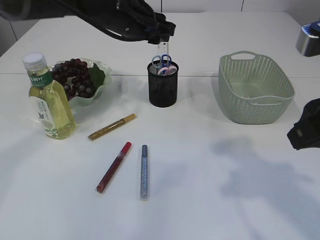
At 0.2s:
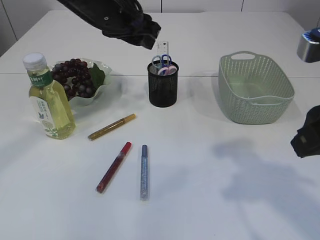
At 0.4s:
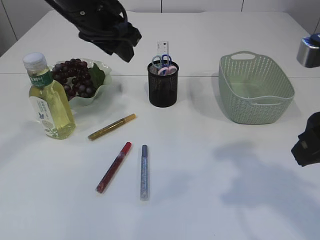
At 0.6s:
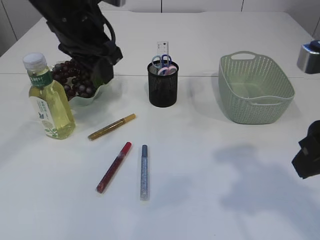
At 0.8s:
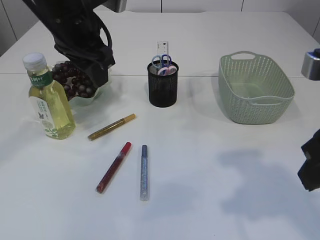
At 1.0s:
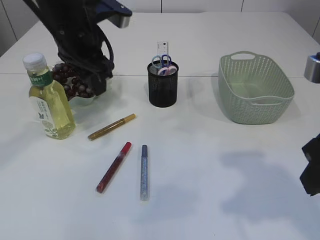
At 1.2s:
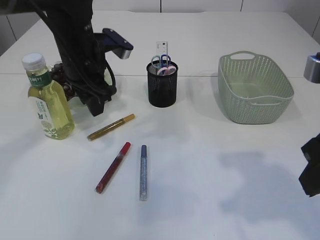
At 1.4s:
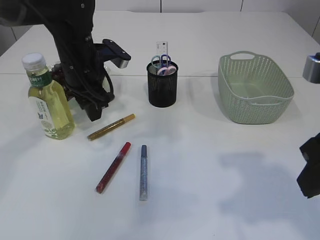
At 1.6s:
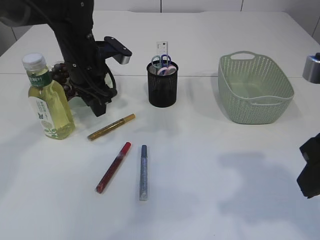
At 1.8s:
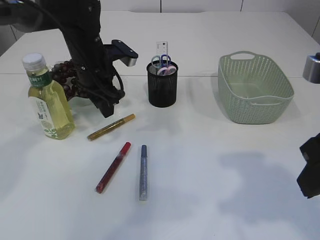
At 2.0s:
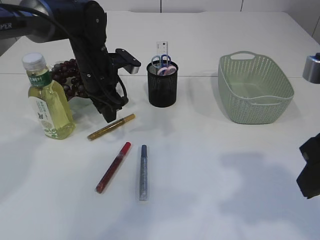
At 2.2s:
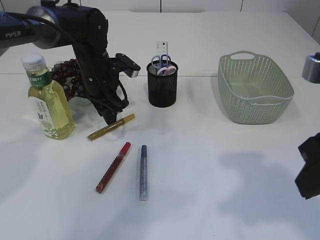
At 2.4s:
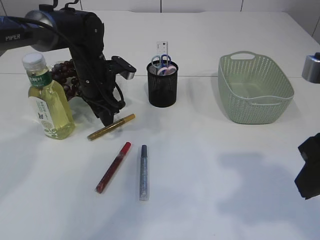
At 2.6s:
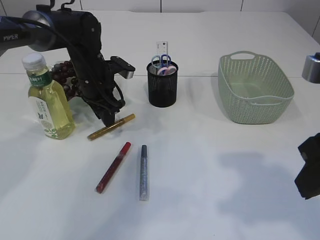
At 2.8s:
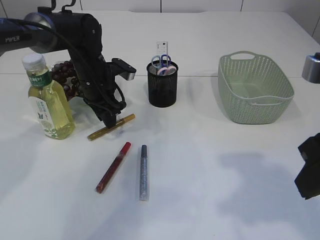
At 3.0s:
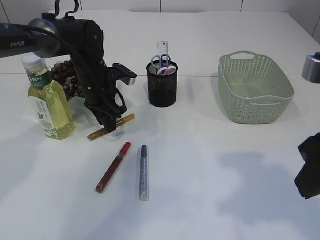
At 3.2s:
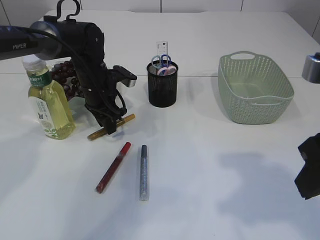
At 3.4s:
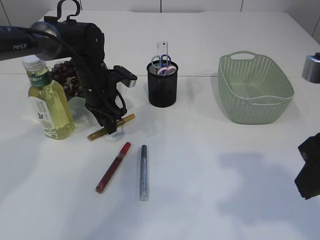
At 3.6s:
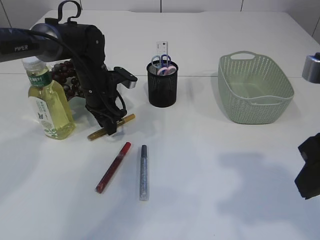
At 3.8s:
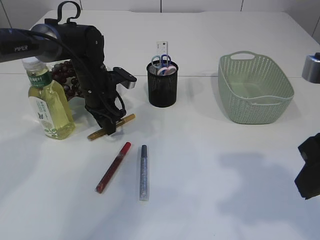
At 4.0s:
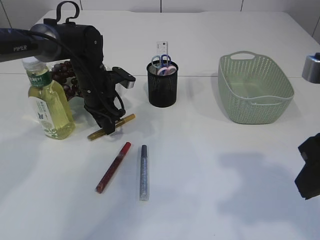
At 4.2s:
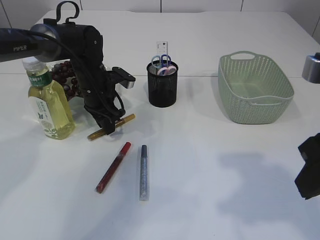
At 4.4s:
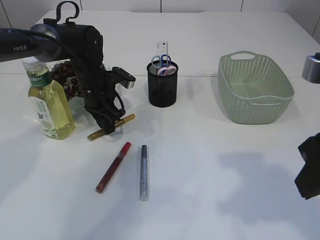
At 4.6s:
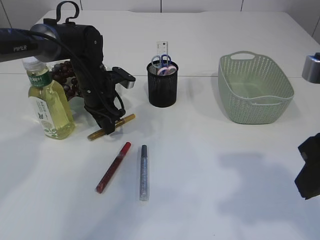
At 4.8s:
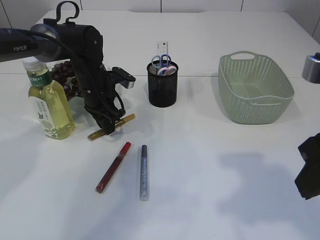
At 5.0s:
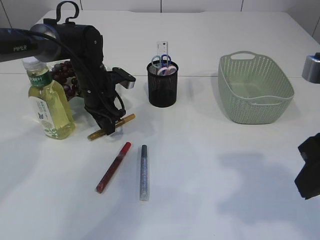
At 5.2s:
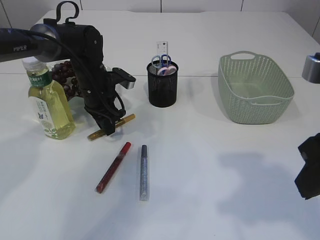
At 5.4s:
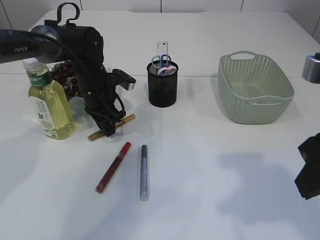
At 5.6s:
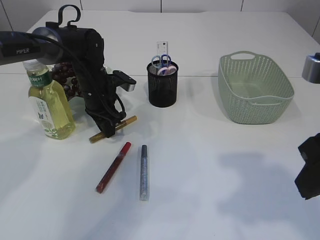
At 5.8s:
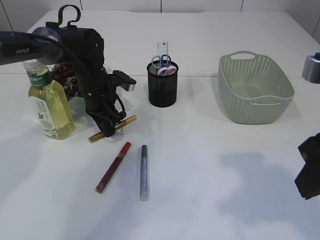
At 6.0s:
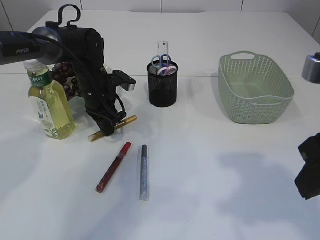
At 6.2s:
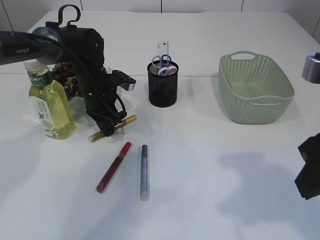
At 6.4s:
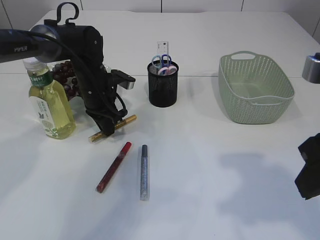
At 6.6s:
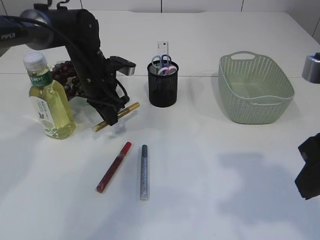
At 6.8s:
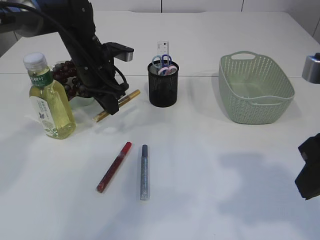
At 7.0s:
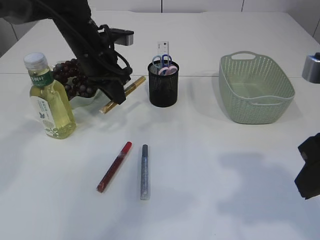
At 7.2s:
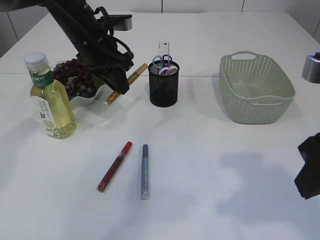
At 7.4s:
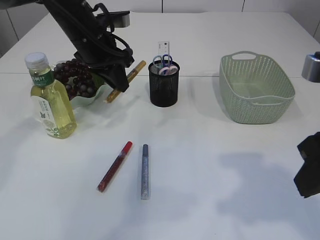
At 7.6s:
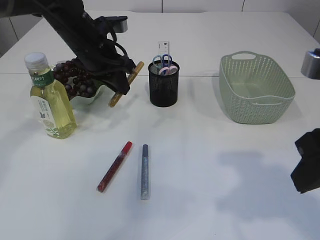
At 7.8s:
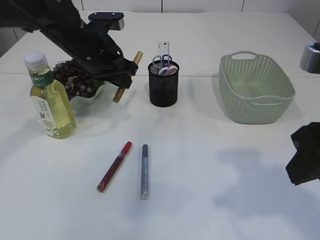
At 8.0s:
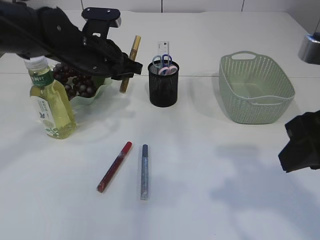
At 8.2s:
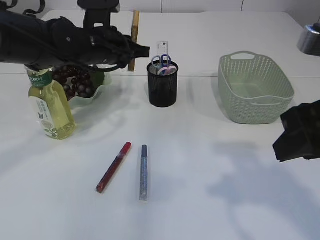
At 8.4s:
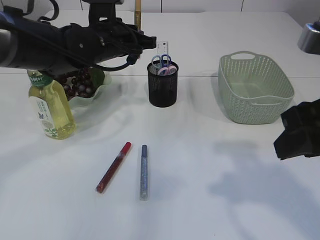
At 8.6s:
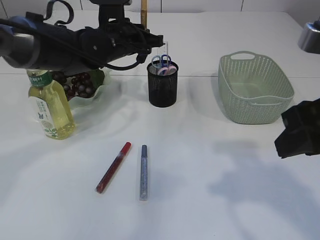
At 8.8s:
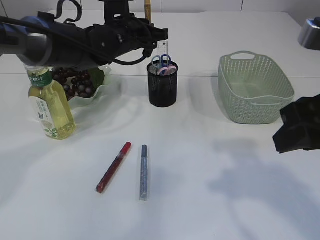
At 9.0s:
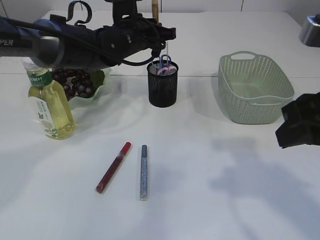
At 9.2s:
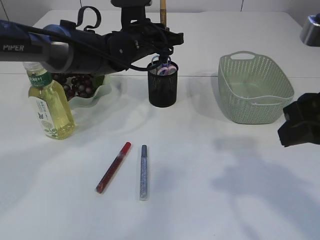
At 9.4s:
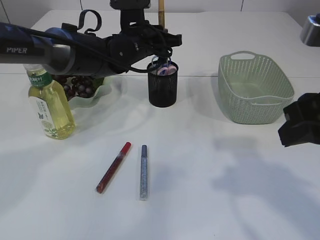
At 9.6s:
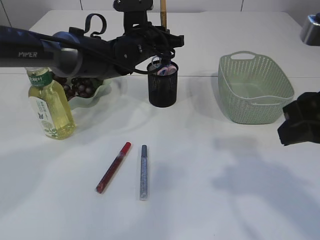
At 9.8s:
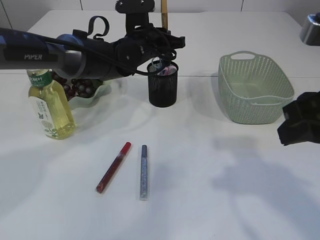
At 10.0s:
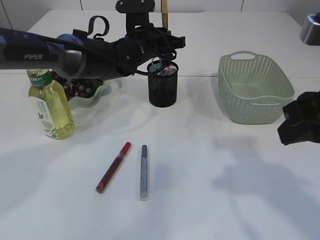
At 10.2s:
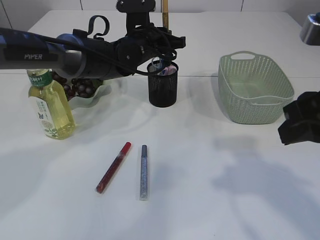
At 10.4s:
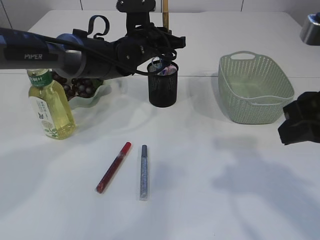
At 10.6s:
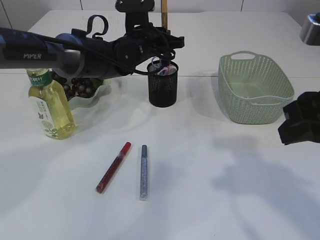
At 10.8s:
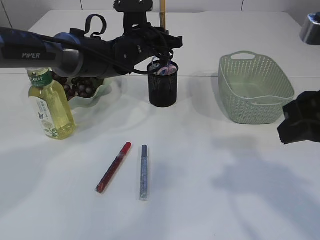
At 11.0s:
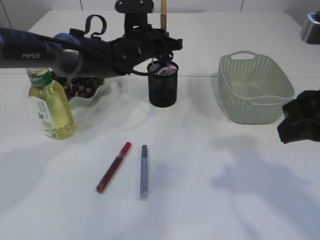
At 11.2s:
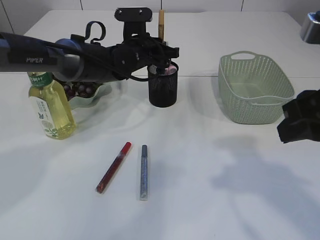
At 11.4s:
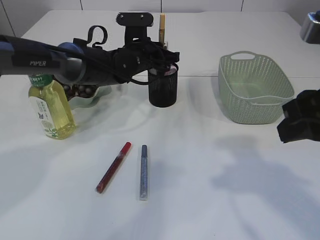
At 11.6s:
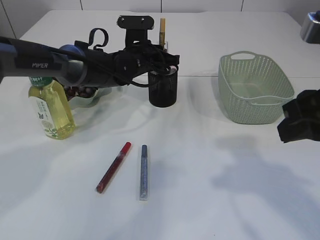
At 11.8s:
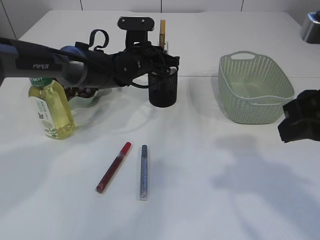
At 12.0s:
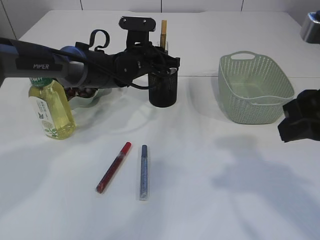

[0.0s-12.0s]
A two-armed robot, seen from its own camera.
Step, 0.2s to 7.0s: pick up the yellow glue.
0.0s to 1.6s: The left gripper goes about 10 cm to the left and downward.
1.6s to 3.0s: The left gripper travels downward by roughly 10 cm.
3.0s to 4.4s: Both grippers stay put.
4.4s to 6.0s: The two grippers keep their place.
6.0s to 7.6s: The left gripper goes approximately 10 cm upward.
7.6s to 9.0s: The left gripper shifts about 5 cm to the right.
9.0s to 10.4s: The grippers make only small movements.
10.4s to 12.0s: The grippers move only a little.

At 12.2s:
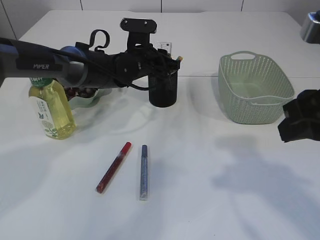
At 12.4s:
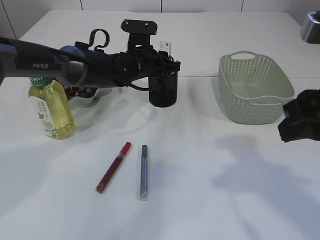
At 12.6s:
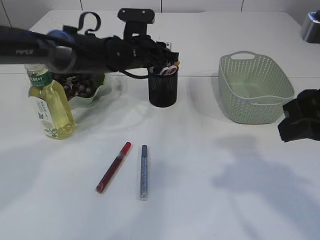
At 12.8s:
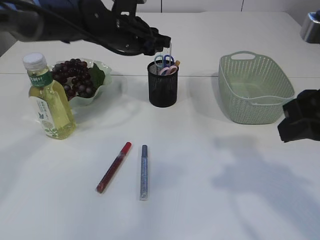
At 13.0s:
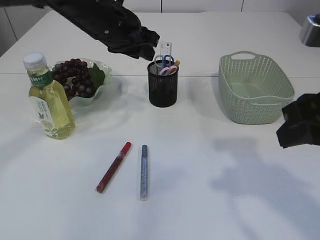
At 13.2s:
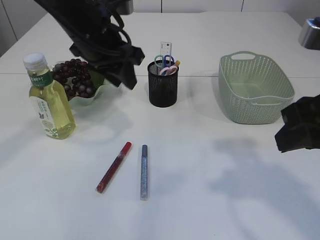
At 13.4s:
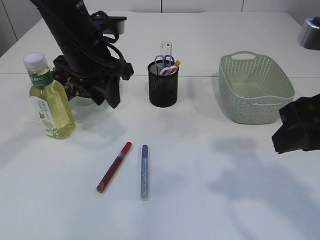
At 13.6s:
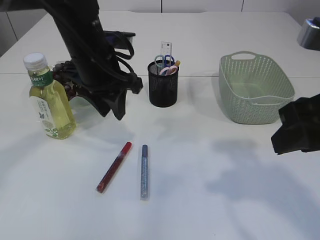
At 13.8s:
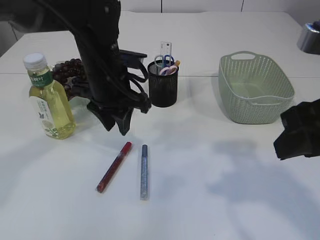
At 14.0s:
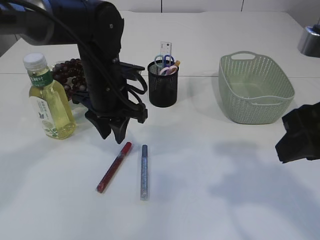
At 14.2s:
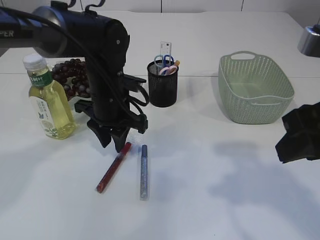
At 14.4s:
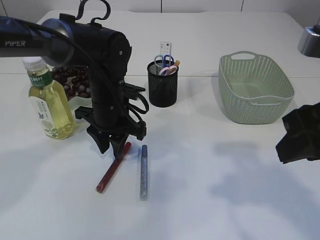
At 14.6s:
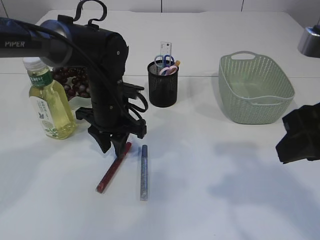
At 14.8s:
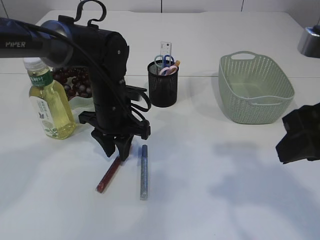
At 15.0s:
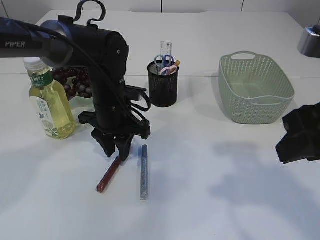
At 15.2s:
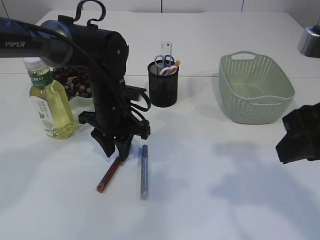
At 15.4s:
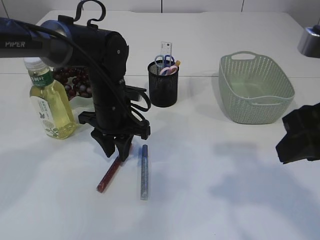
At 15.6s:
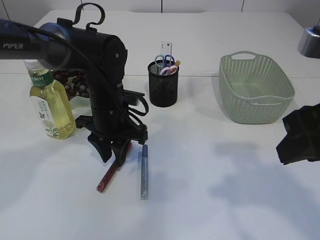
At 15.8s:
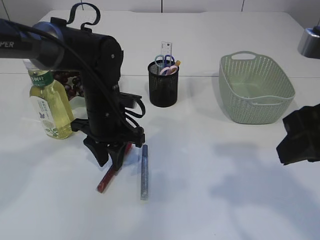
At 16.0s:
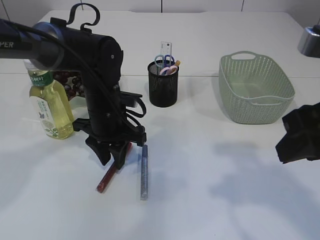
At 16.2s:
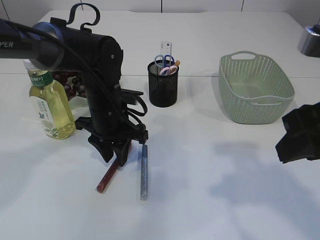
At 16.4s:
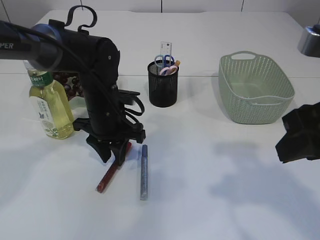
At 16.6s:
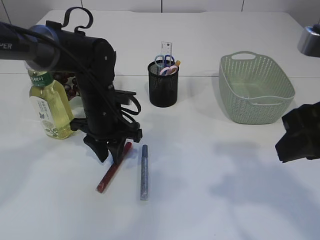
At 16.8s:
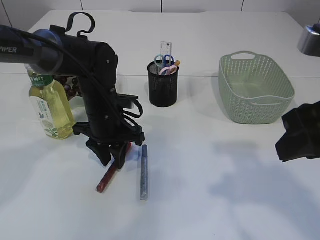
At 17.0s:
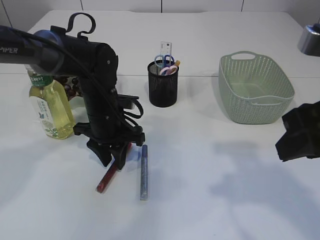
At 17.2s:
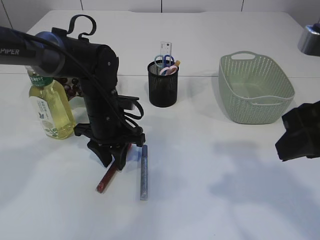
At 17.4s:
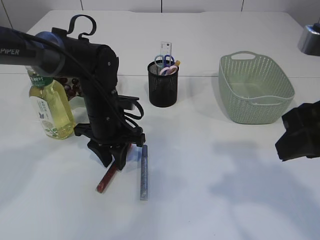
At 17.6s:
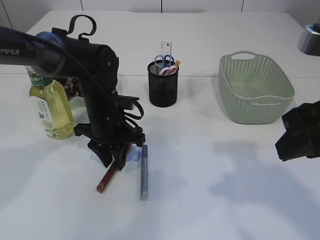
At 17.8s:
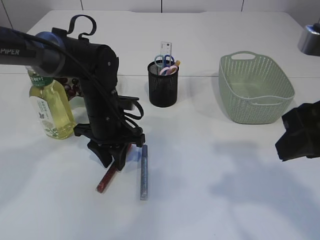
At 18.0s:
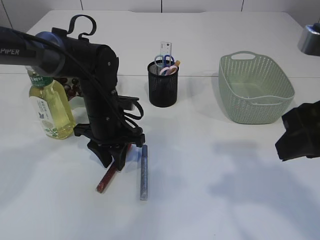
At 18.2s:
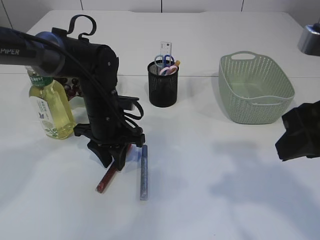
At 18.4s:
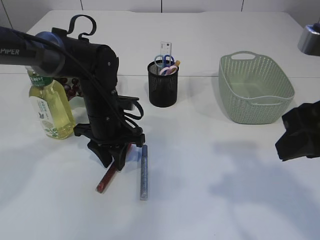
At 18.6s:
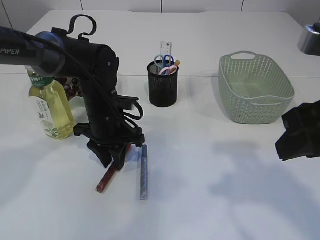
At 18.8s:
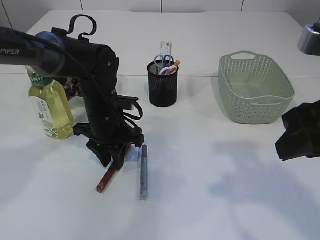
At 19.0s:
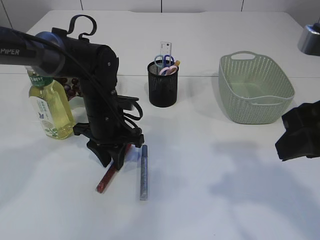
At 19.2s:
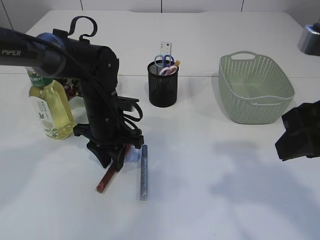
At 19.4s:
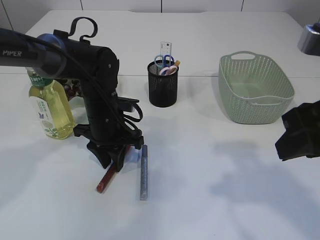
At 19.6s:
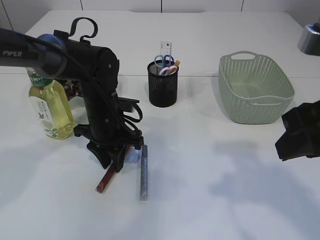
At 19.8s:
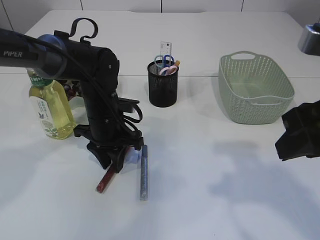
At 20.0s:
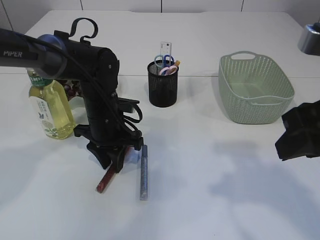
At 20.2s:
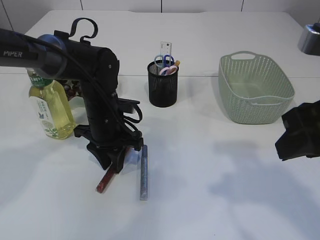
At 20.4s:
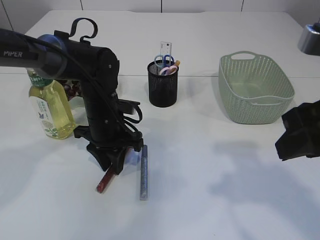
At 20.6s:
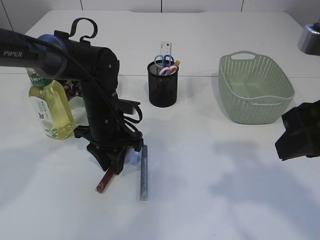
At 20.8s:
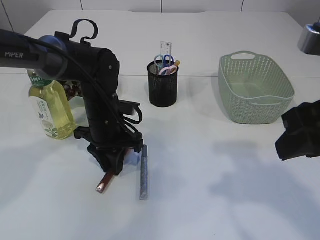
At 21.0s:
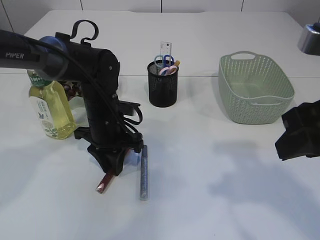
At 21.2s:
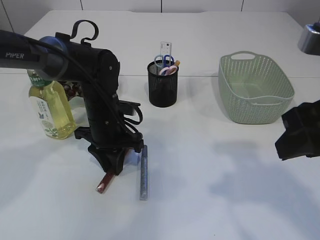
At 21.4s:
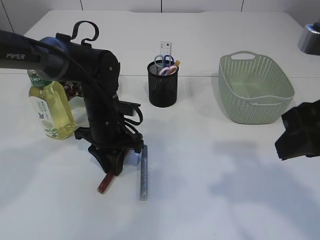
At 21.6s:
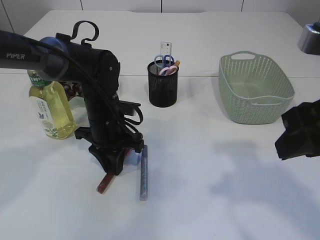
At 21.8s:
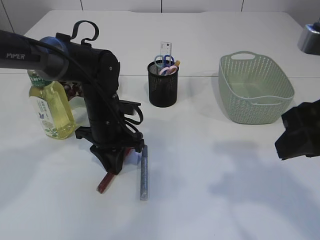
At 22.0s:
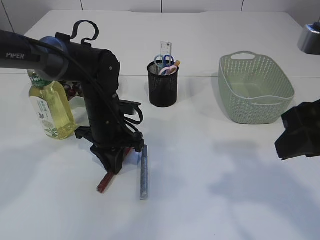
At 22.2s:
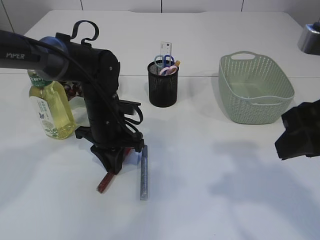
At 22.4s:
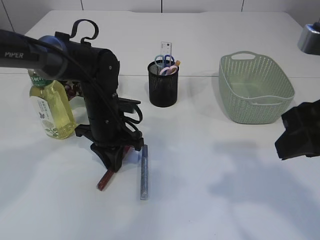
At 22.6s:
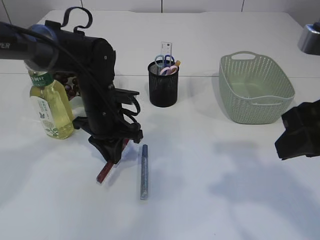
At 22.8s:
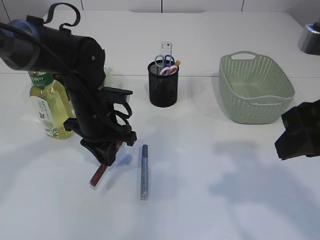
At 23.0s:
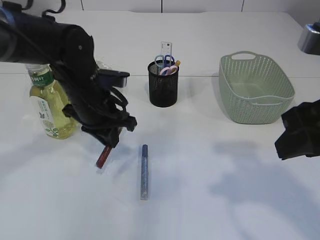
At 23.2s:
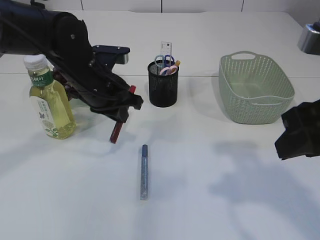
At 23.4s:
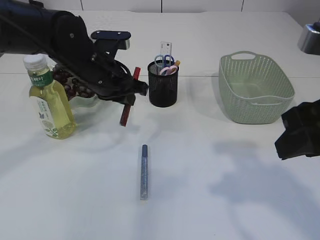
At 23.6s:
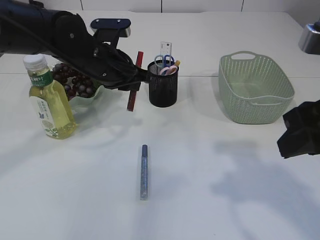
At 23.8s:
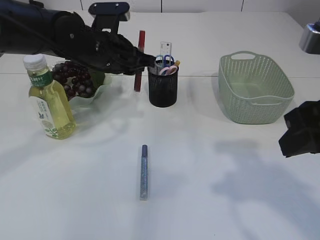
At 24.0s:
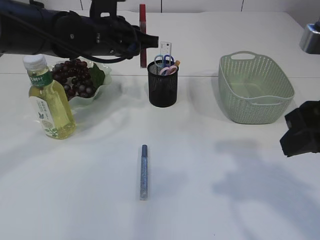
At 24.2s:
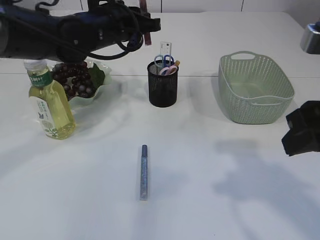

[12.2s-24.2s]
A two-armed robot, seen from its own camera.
Step, 13.2s to 23.2s: pick up the red glue.
12.2s to 13.8s: The left gripper travels backward and upward by approximately 15 cm.
13.8s to 15.2s: The left gripper travels downward by roughly 10 cm.
15.2s to 16.6s: The grippers stay close to where they were, moving slightly.
16.6s to 18.2s: The two grippers keep their place.
18.2s to 21.2s: Both grippers stay about where they are.
21.2s to 22.6s: The grippers make only small movements.
22.6s to 24.2s: The left gripper is displaced upward by approximately 15 cm.
